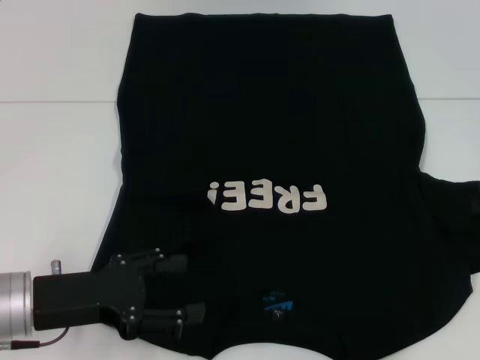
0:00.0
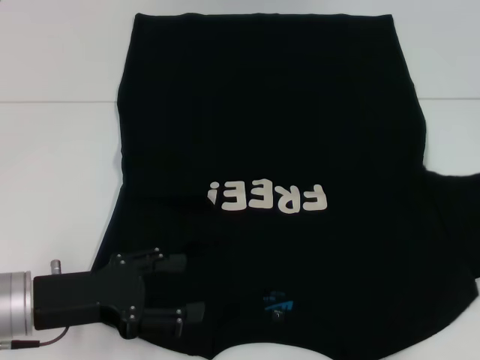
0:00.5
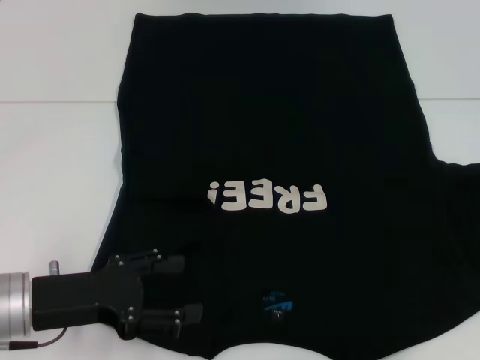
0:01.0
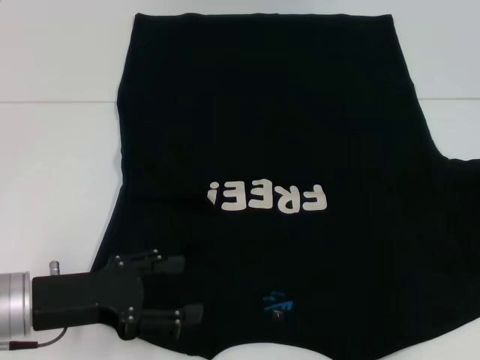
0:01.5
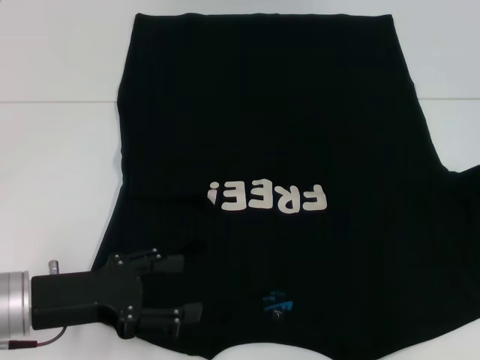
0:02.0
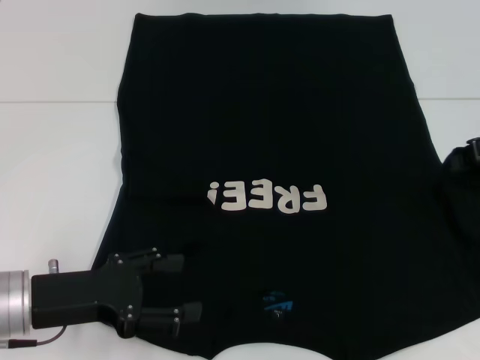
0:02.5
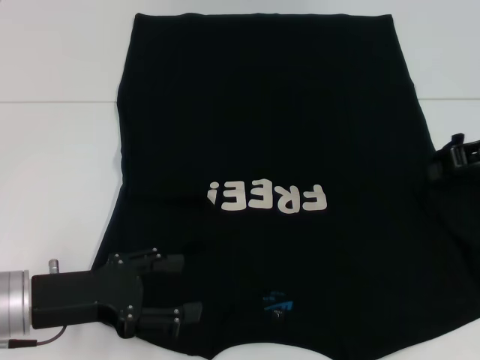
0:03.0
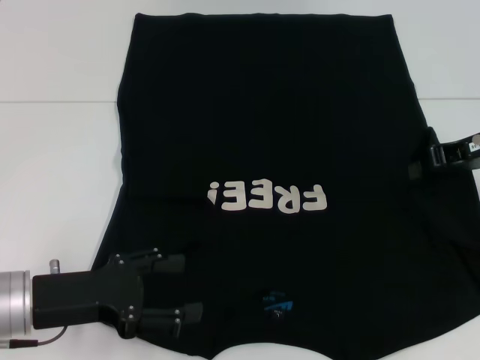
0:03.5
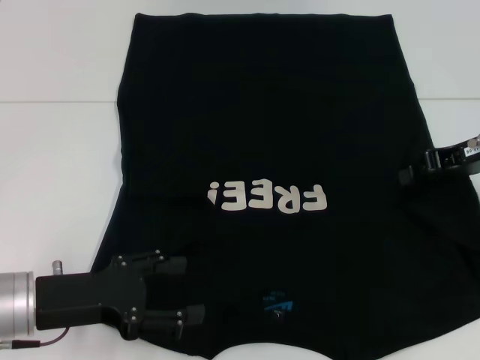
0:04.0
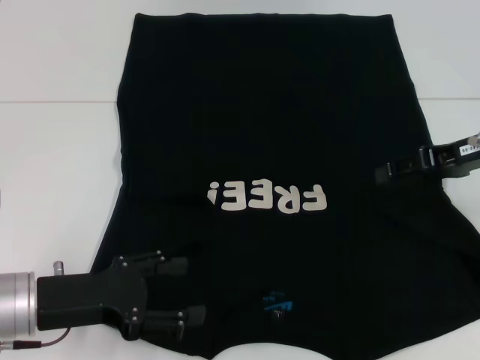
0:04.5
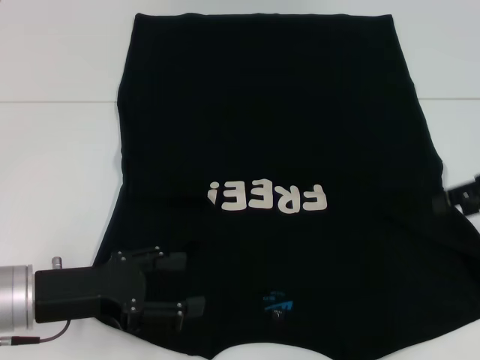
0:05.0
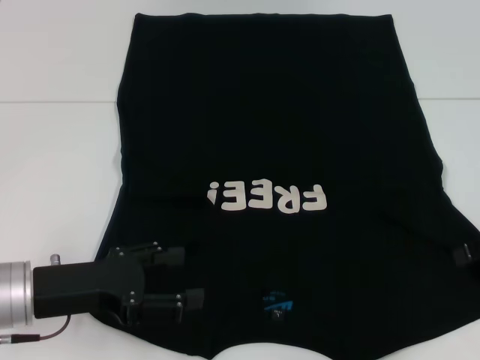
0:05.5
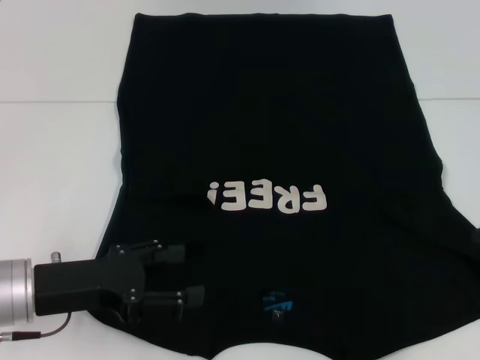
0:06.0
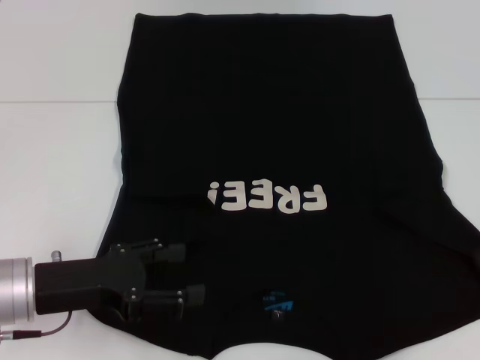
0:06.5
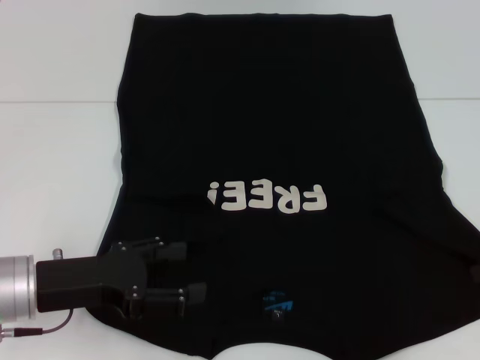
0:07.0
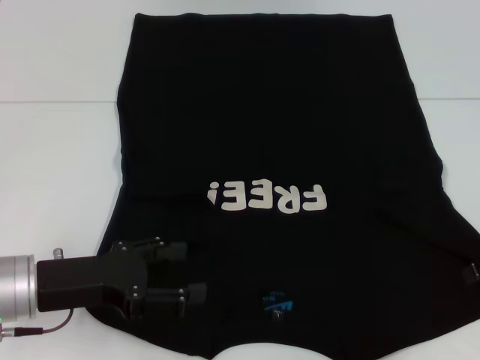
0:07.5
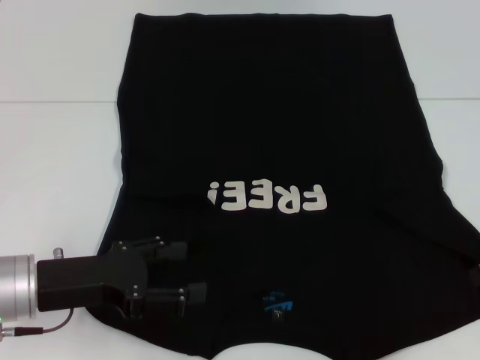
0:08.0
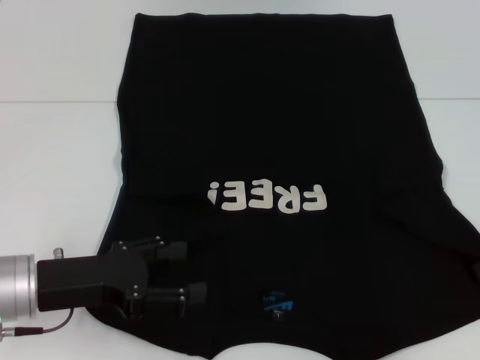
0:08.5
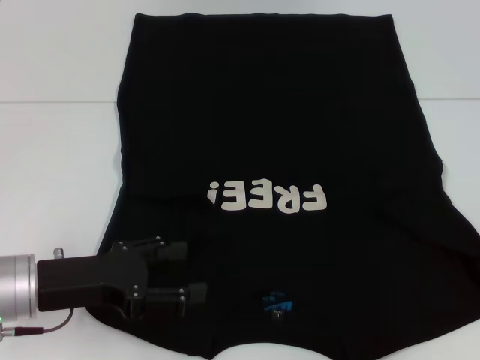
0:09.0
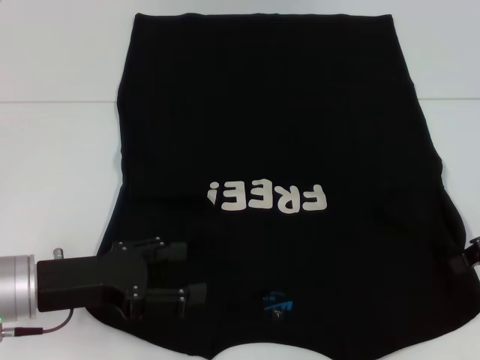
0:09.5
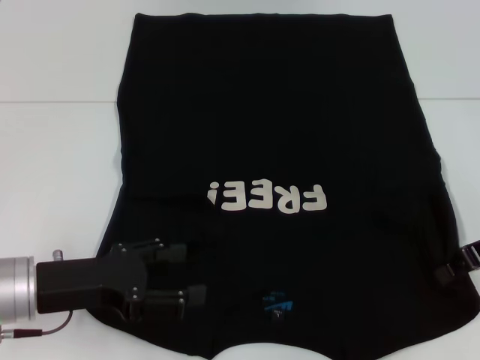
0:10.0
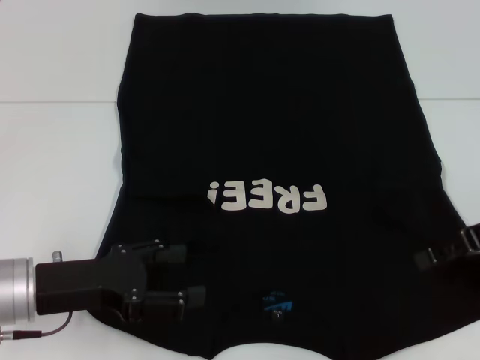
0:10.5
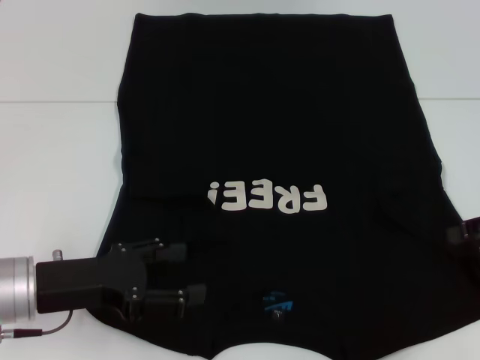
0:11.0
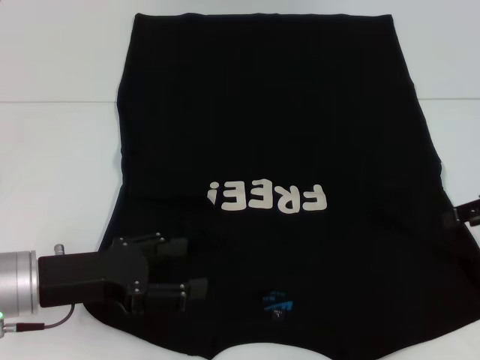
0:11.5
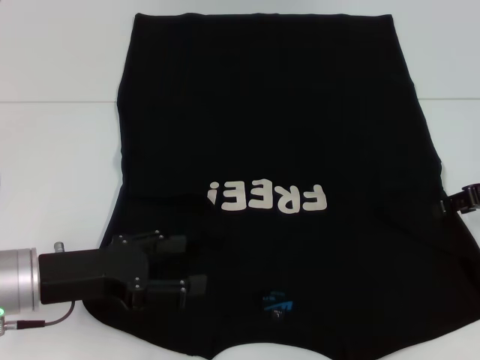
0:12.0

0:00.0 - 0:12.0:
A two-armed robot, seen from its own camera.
0:00.0 - 0:02.0: The right gripper goes roughly 5 cm upward.
0:02.0 - 0:04.0: The right gripper is displaced to the left by some 10 cm.
0:04.0 - 0:06.0: The right gripper shifts approximately 10 cm to the right and backward, and opens its fingers.
0:06.0 - 0:08.0: The grippers move only a little.
0:08.0 - 0:10.0: The right gripper closes up.
0:10.0 - 0:12.0: The right gripper opens.

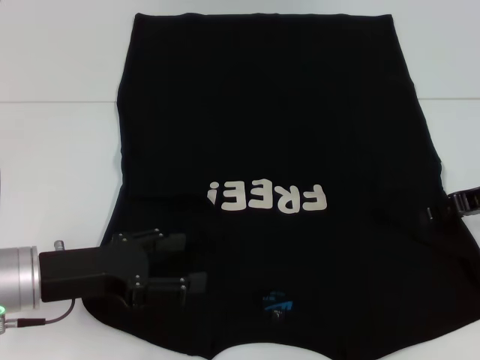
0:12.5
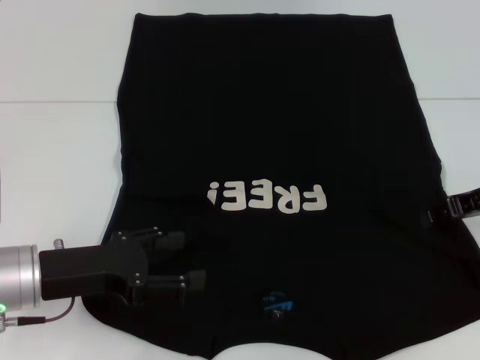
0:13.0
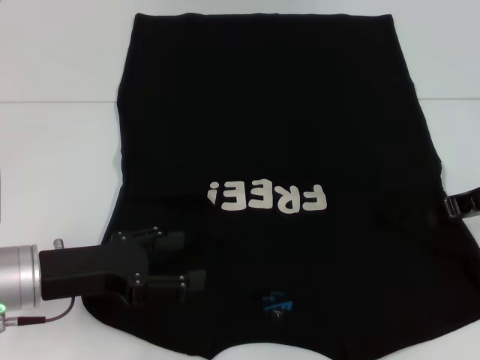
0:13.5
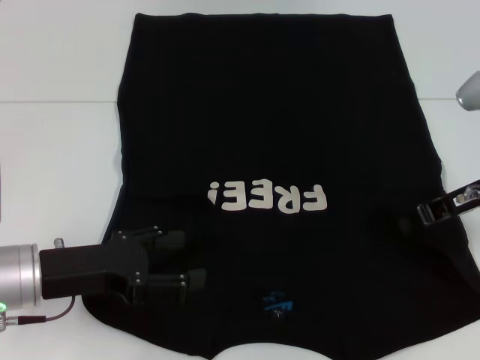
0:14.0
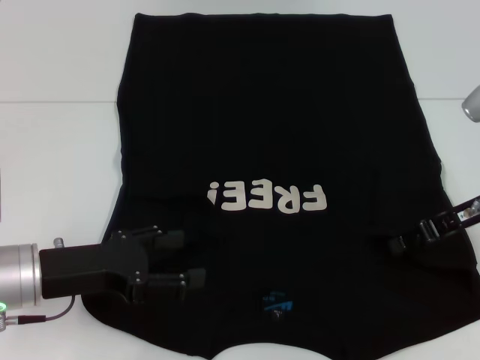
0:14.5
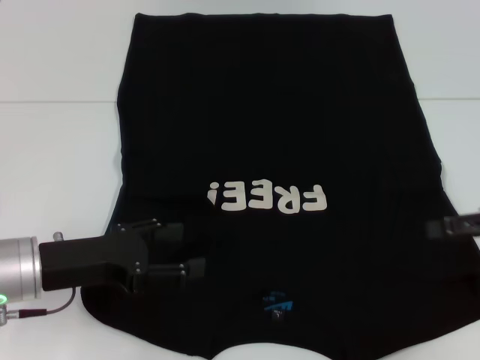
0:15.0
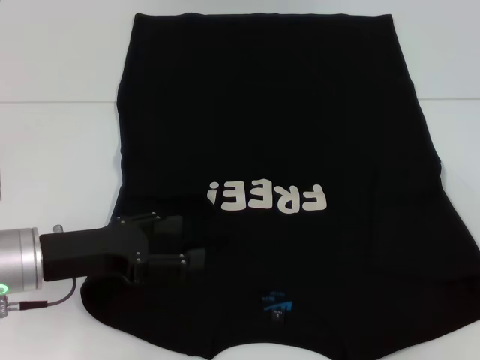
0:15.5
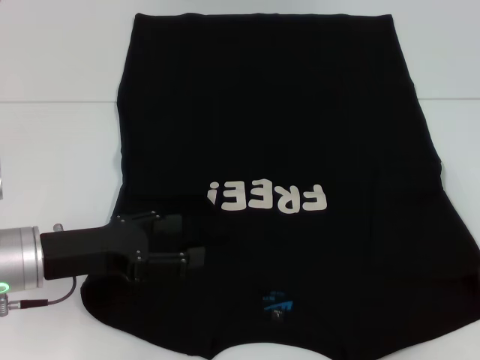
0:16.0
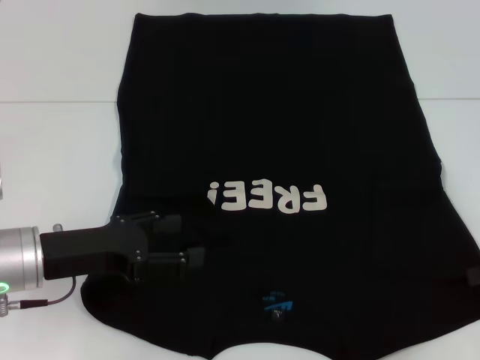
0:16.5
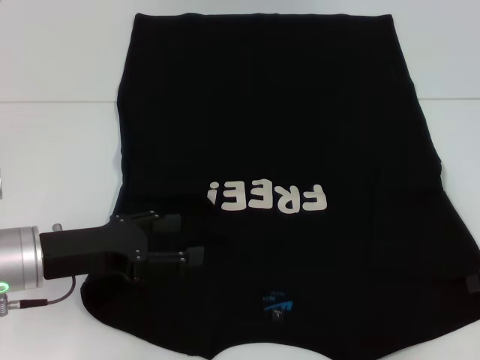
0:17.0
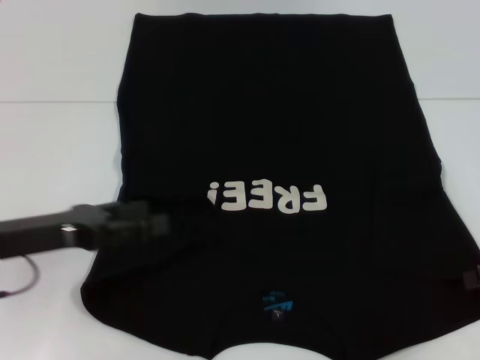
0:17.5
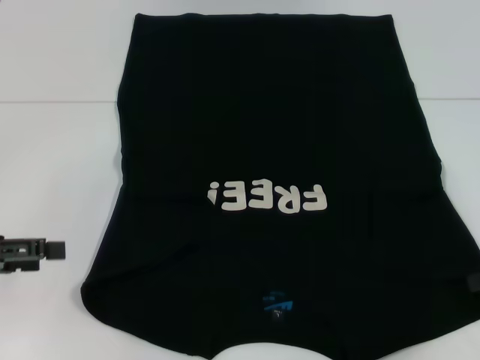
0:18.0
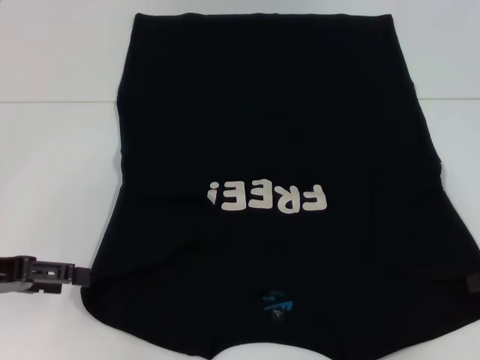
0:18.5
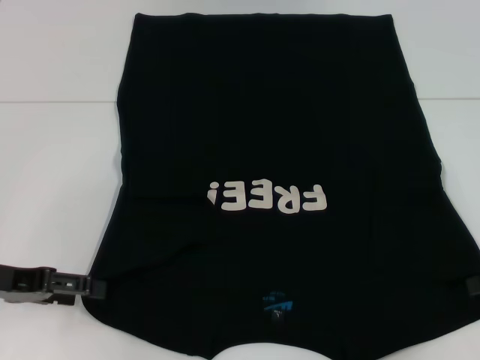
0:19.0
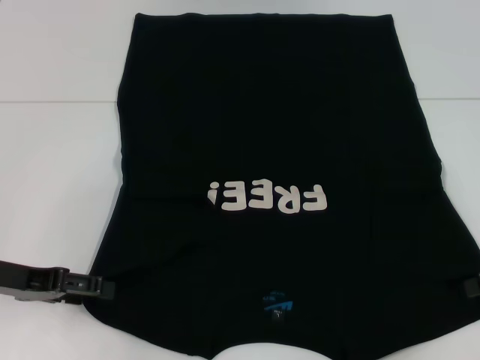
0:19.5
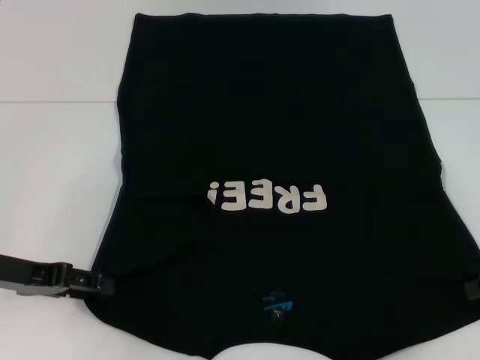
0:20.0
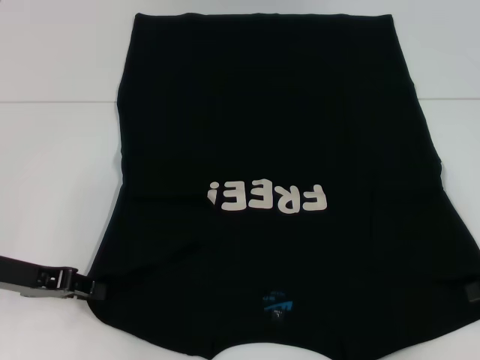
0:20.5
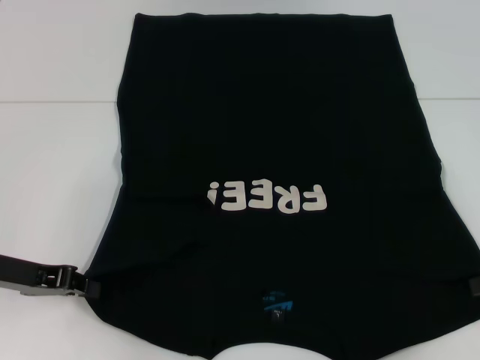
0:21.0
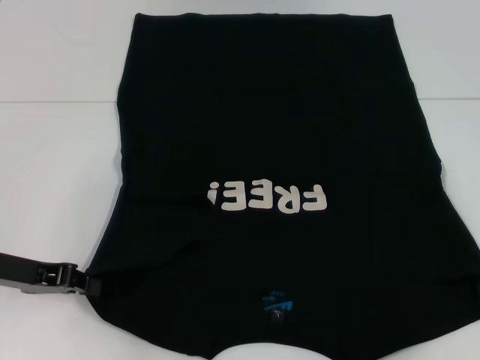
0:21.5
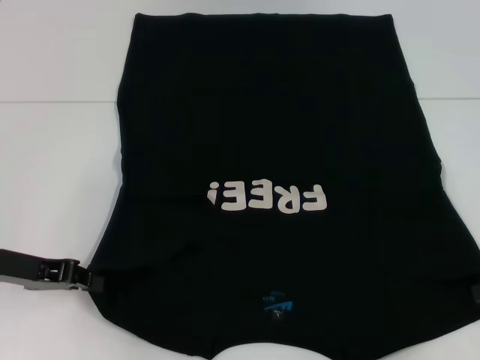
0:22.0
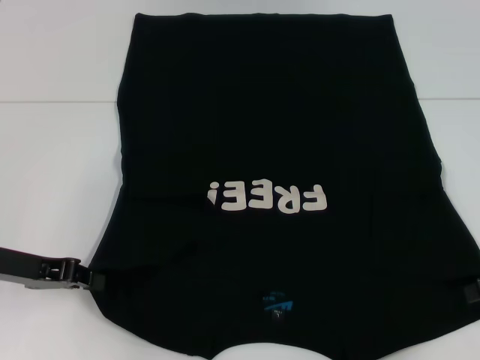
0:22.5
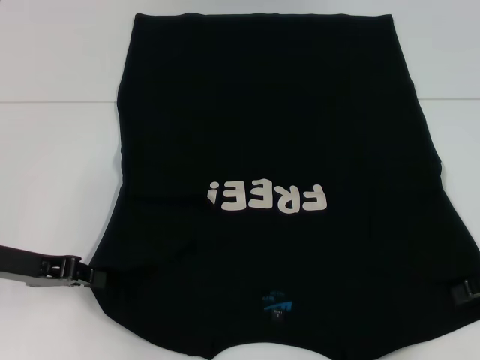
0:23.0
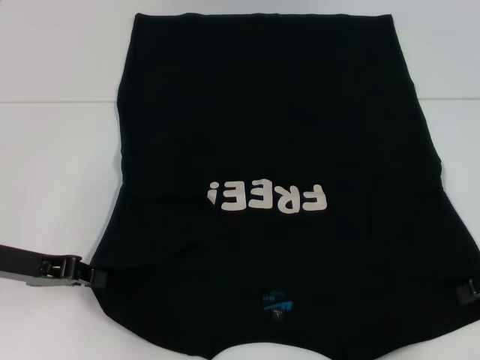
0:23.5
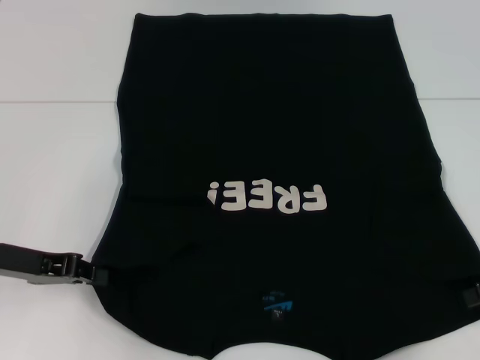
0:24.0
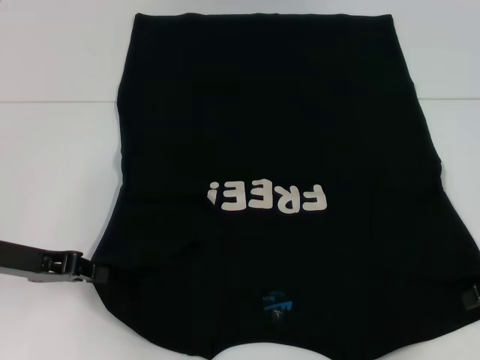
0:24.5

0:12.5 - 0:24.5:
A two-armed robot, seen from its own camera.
Step, 0:12.5 - 0:15.0: Fold the bottom right sleeve with your right hand.
Step, 0:15.5 - 0:20.5: Grab the bottom left corner with your left hand.
0:12.5 - 0:14.5: The right gripper closes its fingers.
0:14.5 - 0:16.5: The right gripper is displaced to the right and backward by some 10 cm, and opens.
0:16.5 - 0:18.5: The left gripper is displaced to the left by about 10 cm.
0:18.5 - 0:20.5: The left gripper shifts by about 5 cm, and closes up.
0:20.5 - 0:22.5: The left gripper closes up.
0:22.5 - 0:24.5: The grippers move only a little.

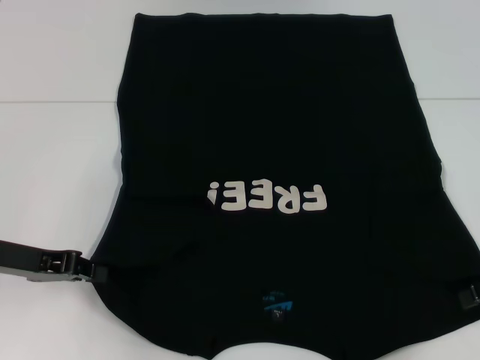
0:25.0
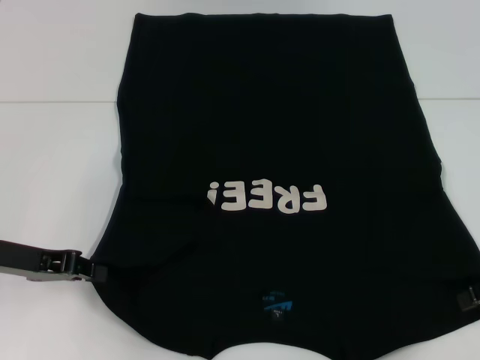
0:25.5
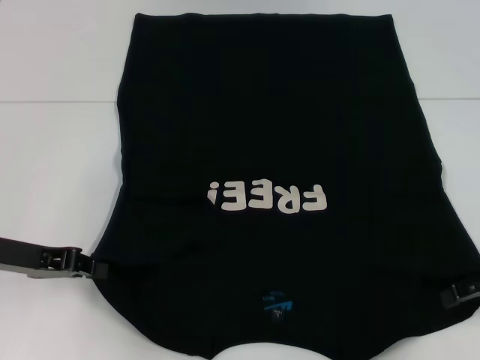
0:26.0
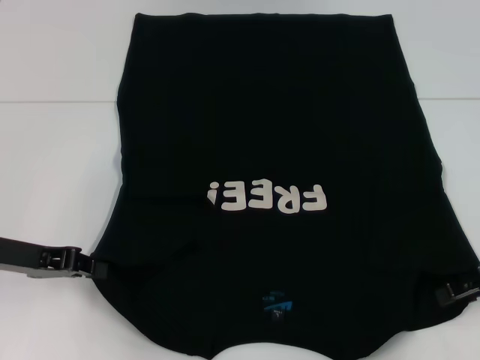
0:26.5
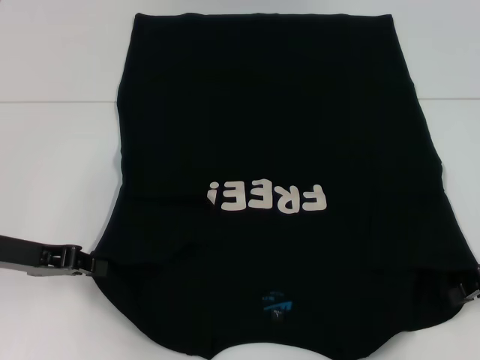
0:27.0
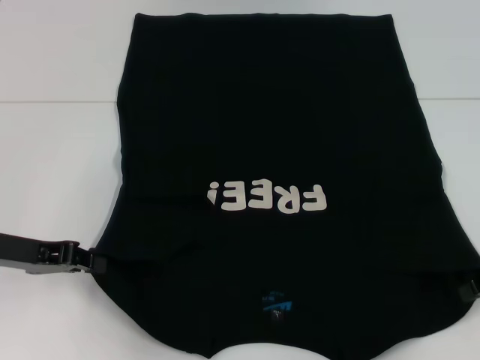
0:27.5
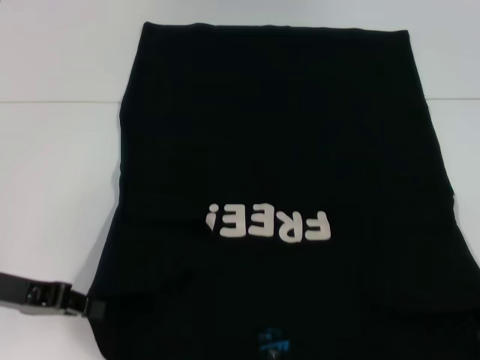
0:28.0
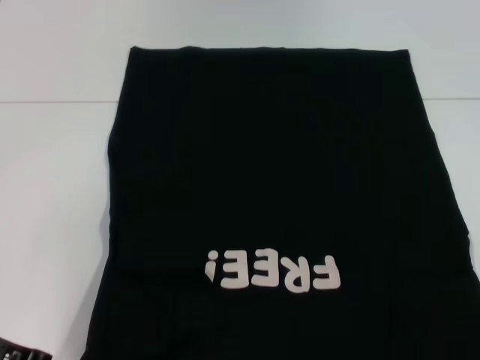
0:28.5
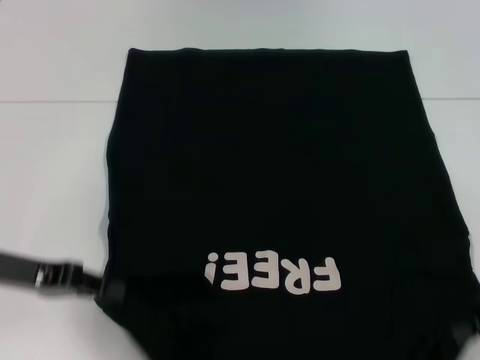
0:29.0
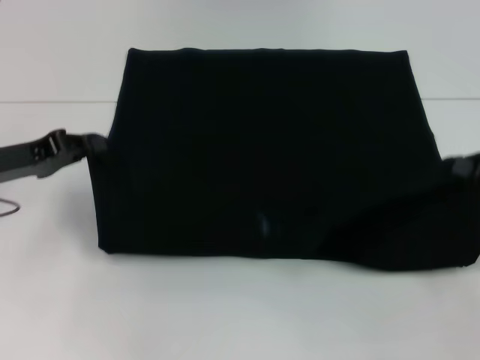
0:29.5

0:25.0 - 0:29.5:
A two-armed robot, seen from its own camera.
Step, 0:25.0 - 0:27.0: Grab the bottom right corner with your right hand.
0:25.0 - 0:27.0: The right gripper closes.
0:27.0 - 0:29.5: The left gripper goes backward and returns, roughly 5 cm each way.
